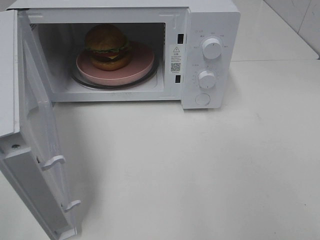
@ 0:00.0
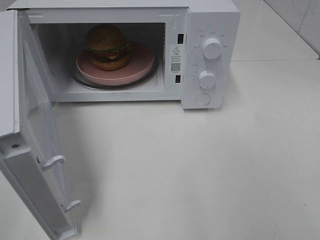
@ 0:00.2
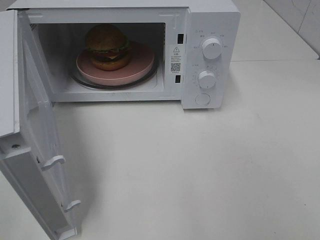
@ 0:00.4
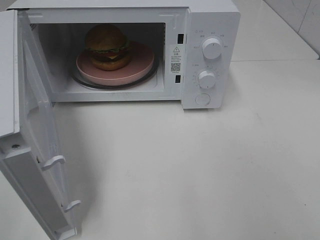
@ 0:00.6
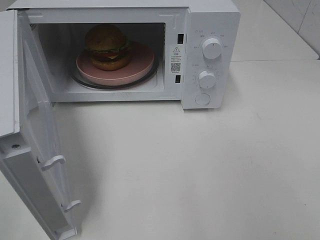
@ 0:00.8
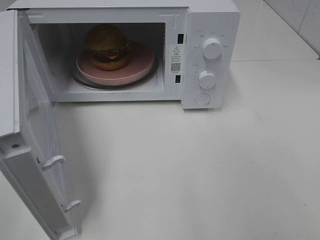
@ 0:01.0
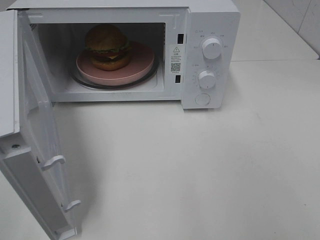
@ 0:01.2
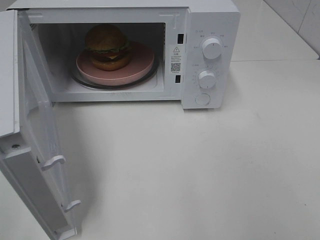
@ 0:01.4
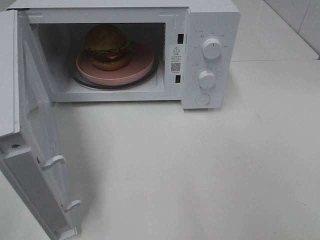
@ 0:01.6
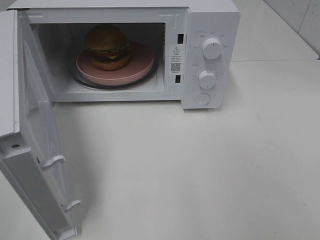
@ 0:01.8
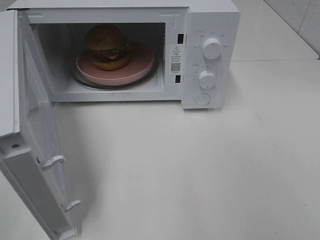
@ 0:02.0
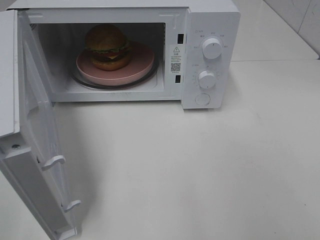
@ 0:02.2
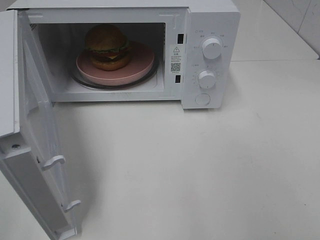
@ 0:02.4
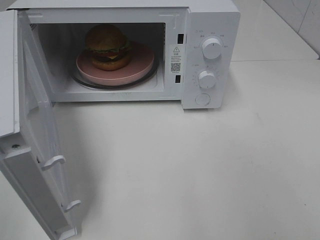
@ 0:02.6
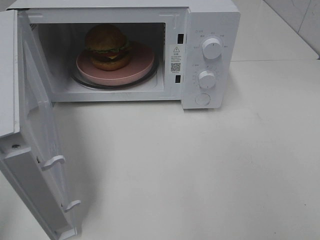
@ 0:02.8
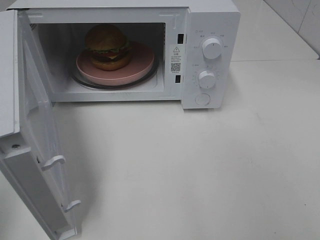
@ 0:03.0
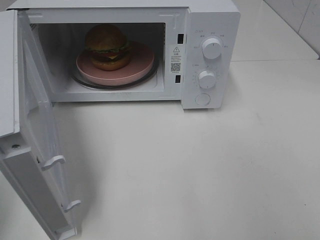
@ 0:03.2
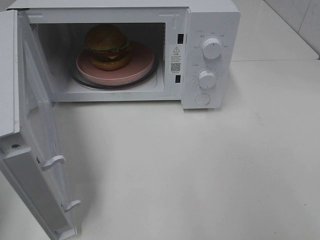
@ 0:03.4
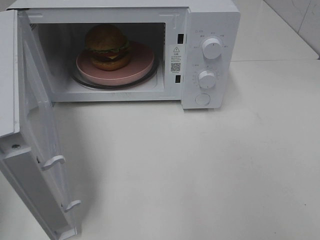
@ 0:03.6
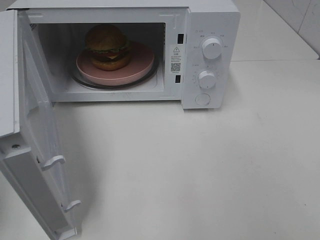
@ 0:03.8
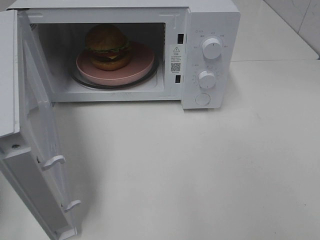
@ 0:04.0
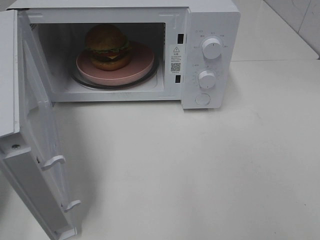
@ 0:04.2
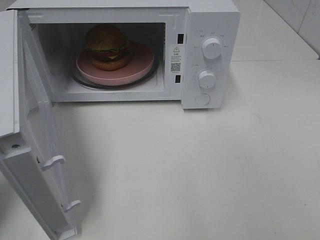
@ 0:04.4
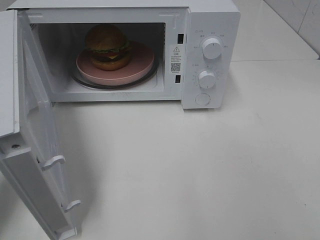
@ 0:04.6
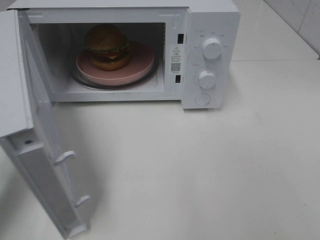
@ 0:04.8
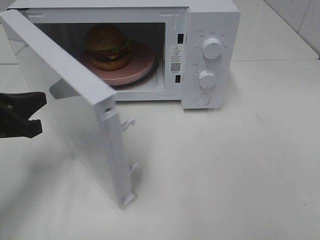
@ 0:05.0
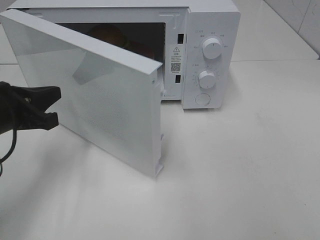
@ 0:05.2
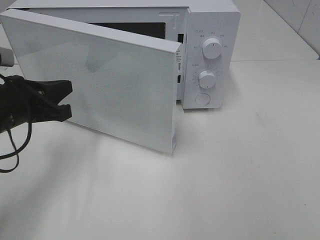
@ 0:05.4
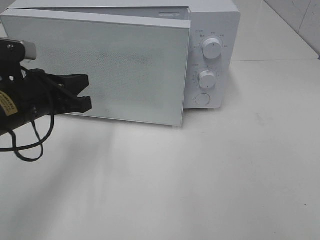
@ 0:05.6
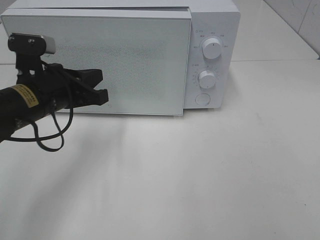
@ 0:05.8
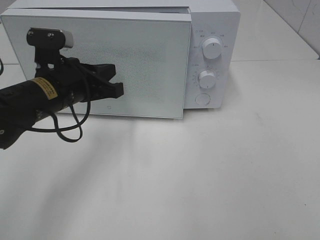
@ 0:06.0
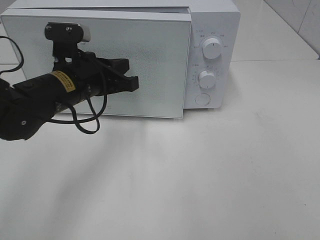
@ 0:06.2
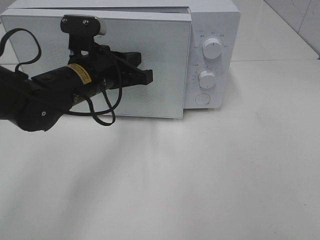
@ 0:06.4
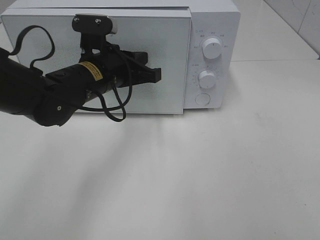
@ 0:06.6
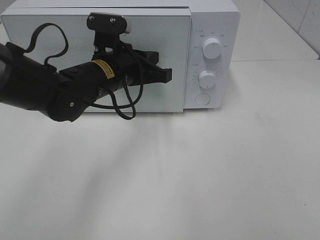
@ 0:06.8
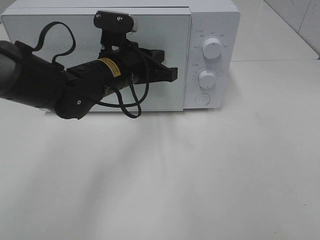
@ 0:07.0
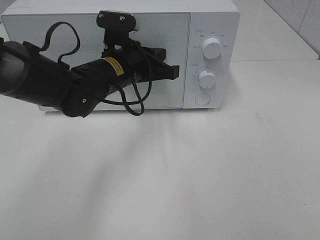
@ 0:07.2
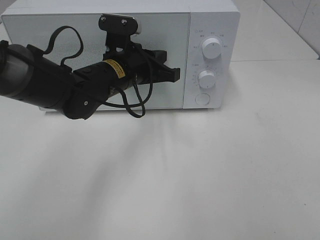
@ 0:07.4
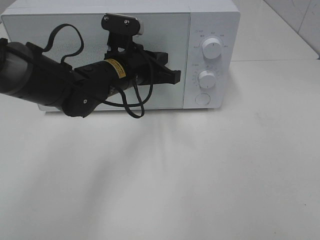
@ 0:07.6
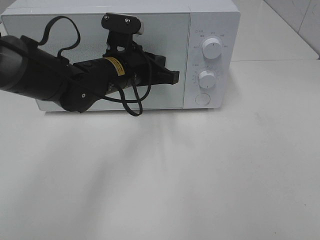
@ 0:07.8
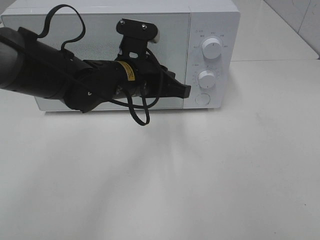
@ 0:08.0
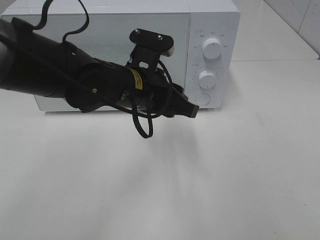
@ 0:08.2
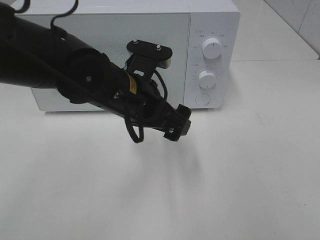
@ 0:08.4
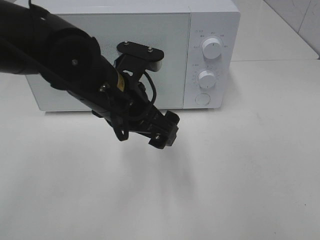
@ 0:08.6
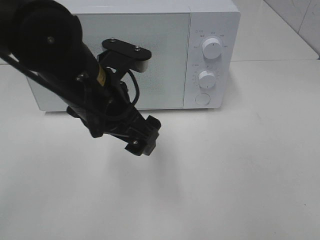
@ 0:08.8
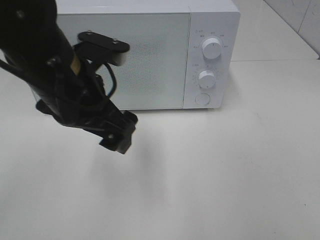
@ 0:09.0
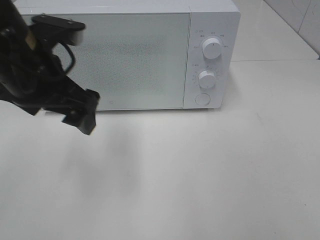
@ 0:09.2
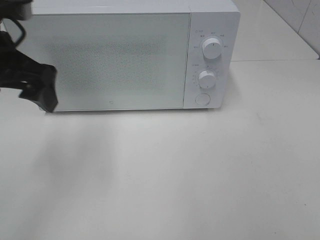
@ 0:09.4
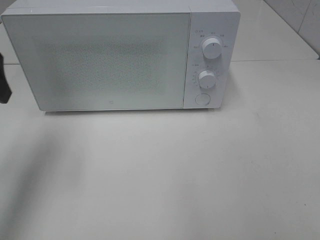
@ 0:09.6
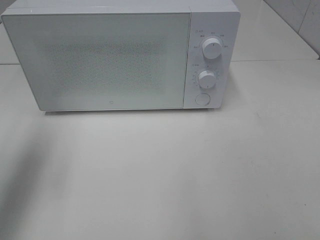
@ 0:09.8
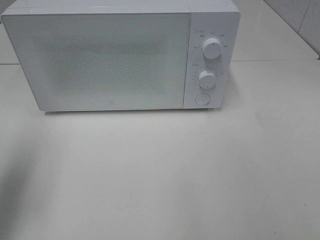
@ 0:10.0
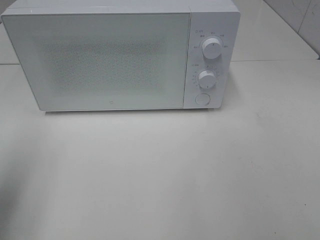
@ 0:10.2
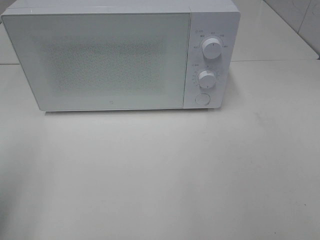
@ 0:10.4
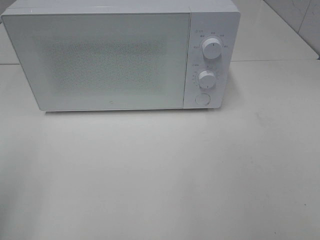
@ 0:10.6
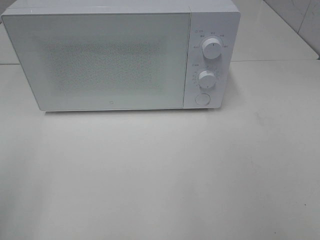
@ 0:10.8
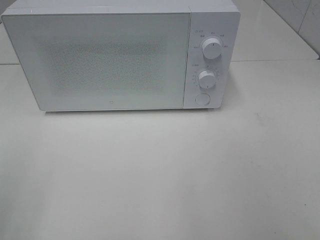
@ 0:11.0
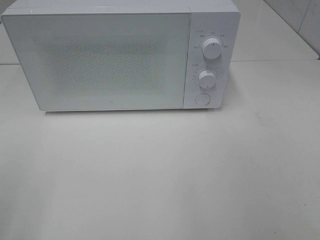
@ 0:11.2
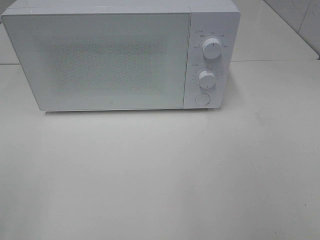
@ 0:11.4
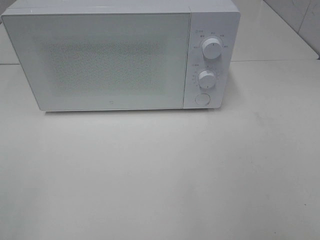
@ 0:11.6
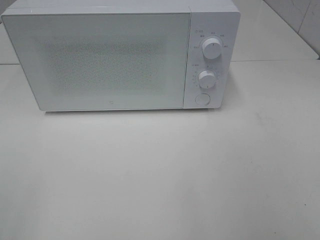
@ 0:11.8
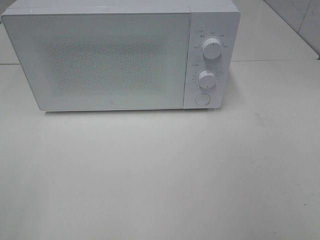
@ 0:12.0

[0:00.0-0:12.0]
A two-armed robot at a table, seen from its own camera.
Task of the whole recording: Heat the burger.
Step, 0:00.0 to 0:07.8: Left hand: close the microwave door.
0:03.0 to 0:04.4: The left gripper heads downward and forward, covering some 20 cm.
0:04.4 to 0:06.0: The left gripper is displaced to the right and forward by some 20 cm.
0:06.0 to 0:07.6: The left gripper shifts roughly 10 cm to the right and forward.
0:07.6 to 0:09.0: The left gripper moves backward and upward, roughly 15 cm, and opens.
0:09.0 to 0:10.4: The left gripper travels to the left and backward by approximately 25 cm.

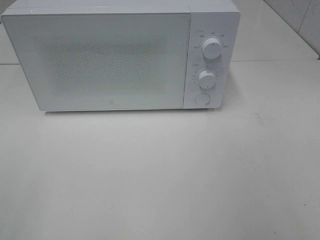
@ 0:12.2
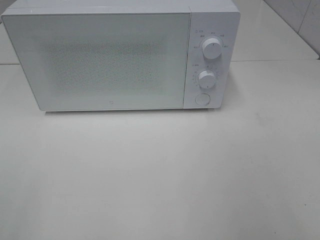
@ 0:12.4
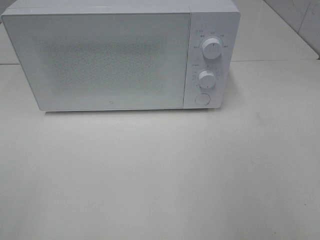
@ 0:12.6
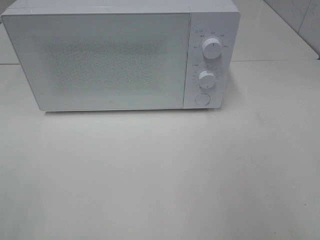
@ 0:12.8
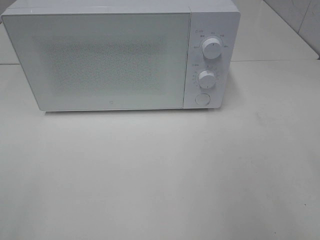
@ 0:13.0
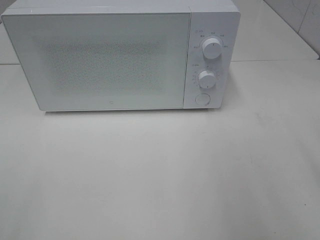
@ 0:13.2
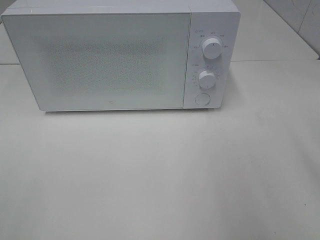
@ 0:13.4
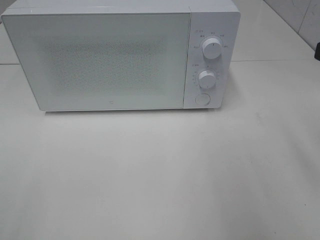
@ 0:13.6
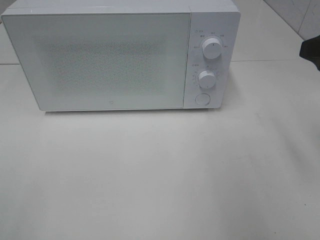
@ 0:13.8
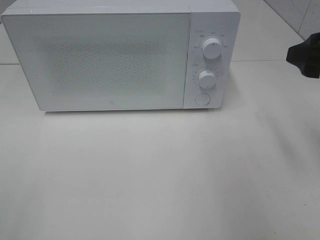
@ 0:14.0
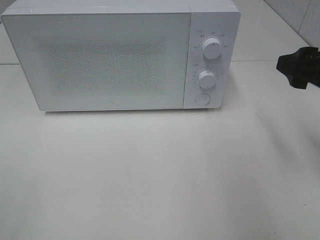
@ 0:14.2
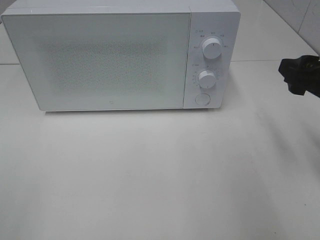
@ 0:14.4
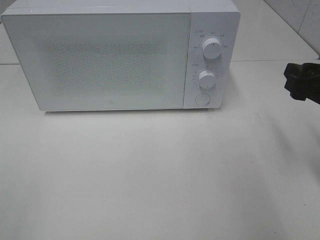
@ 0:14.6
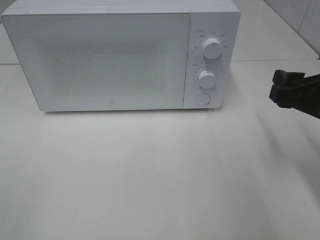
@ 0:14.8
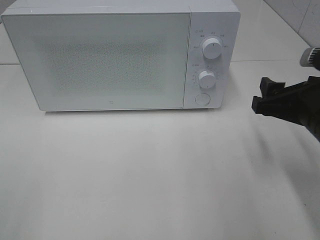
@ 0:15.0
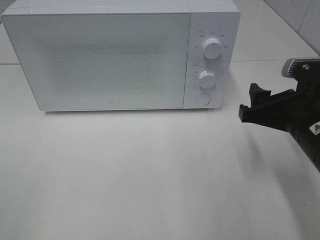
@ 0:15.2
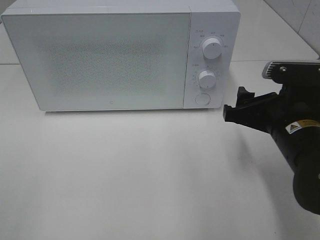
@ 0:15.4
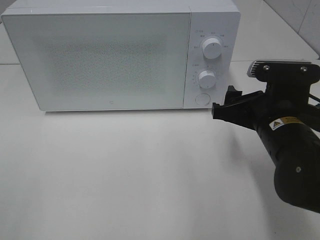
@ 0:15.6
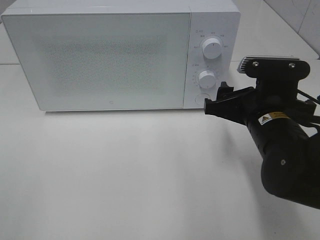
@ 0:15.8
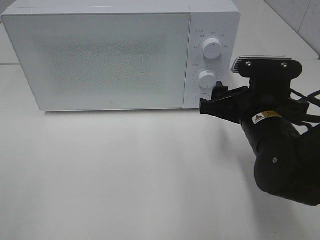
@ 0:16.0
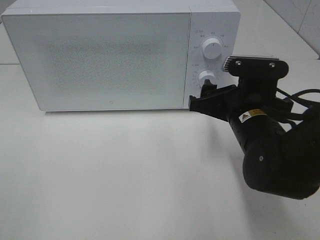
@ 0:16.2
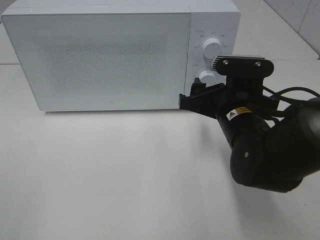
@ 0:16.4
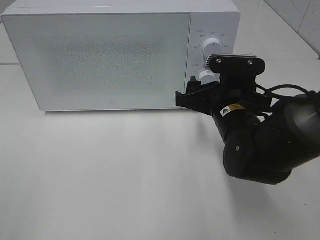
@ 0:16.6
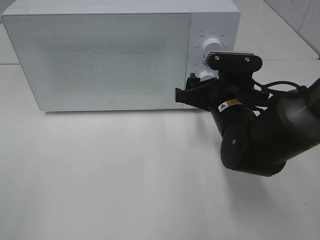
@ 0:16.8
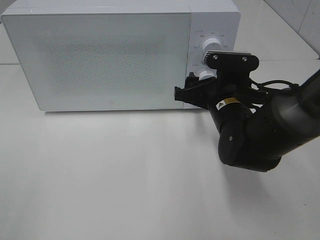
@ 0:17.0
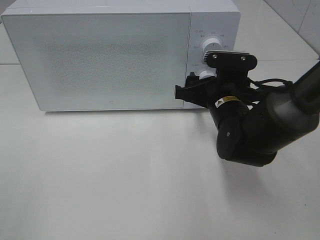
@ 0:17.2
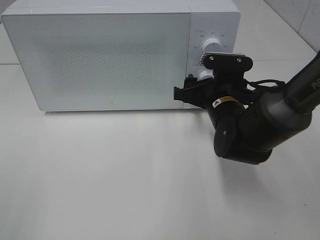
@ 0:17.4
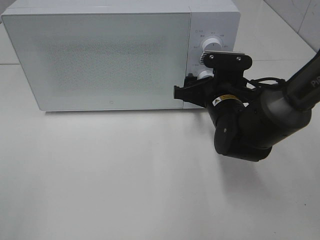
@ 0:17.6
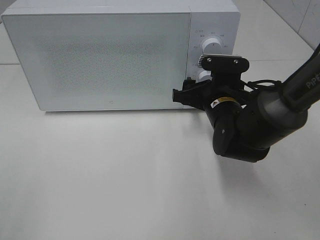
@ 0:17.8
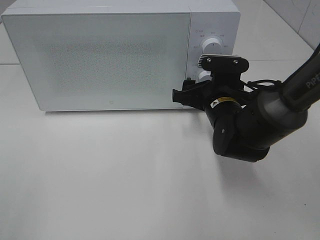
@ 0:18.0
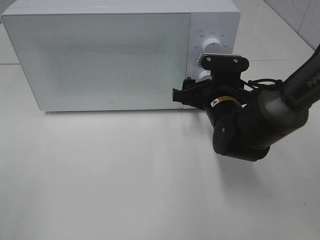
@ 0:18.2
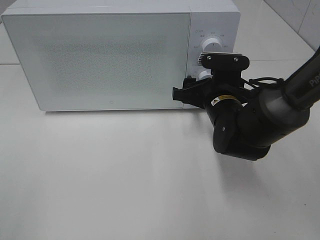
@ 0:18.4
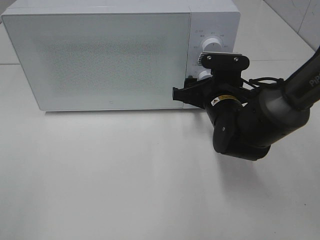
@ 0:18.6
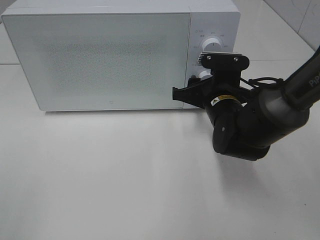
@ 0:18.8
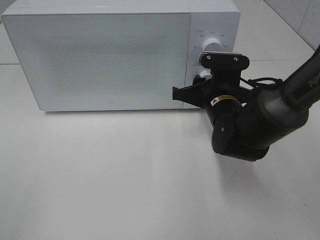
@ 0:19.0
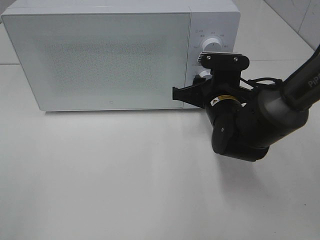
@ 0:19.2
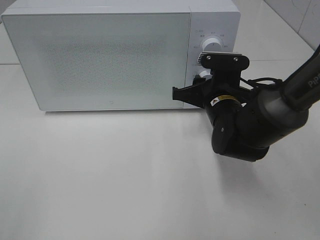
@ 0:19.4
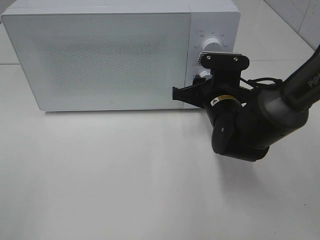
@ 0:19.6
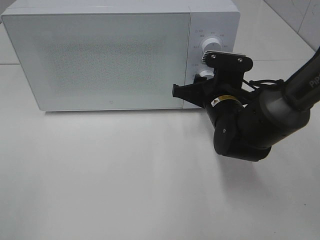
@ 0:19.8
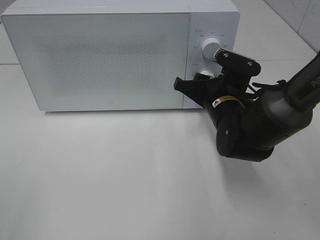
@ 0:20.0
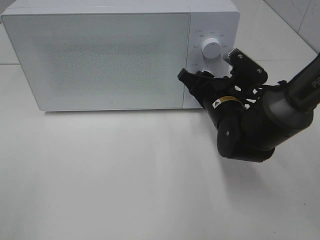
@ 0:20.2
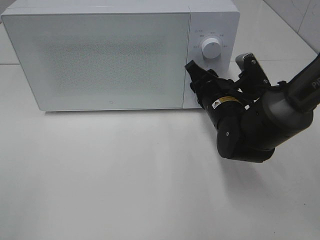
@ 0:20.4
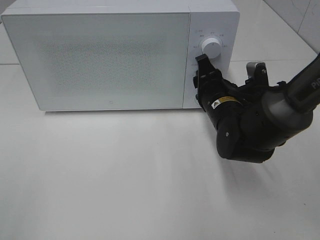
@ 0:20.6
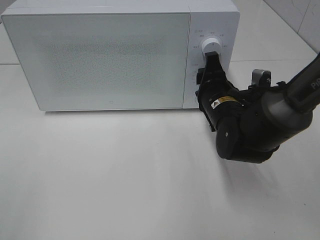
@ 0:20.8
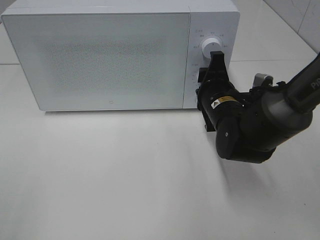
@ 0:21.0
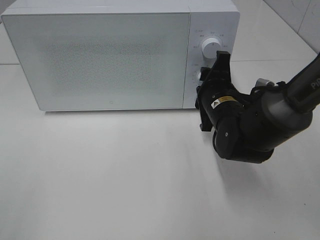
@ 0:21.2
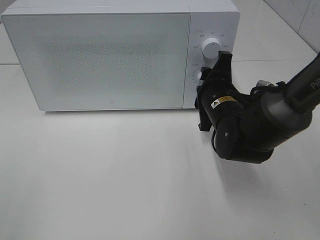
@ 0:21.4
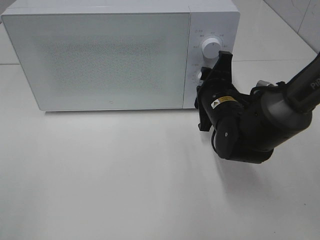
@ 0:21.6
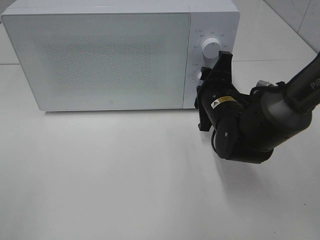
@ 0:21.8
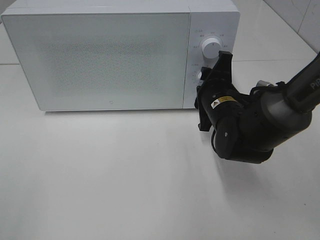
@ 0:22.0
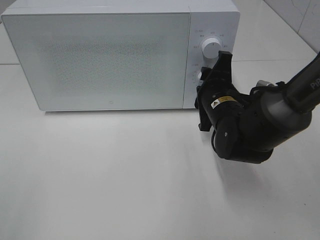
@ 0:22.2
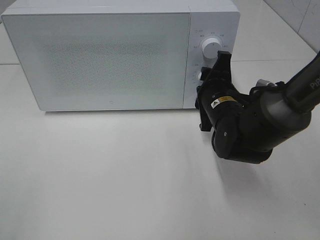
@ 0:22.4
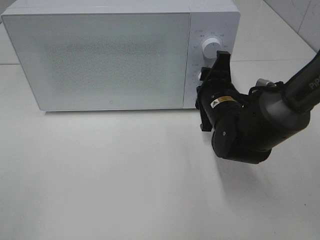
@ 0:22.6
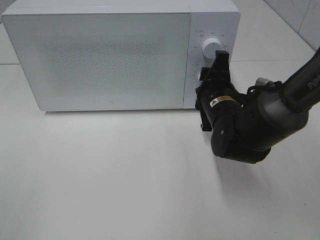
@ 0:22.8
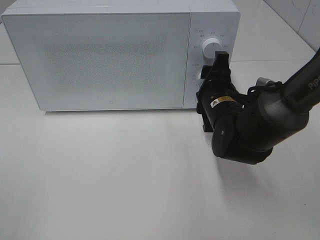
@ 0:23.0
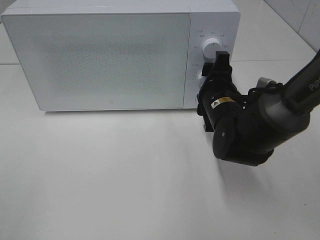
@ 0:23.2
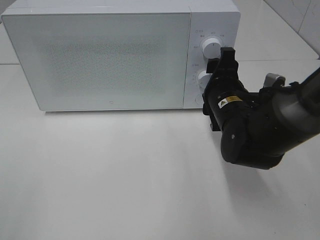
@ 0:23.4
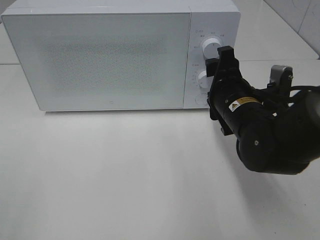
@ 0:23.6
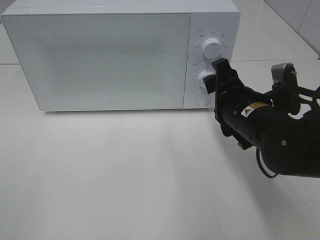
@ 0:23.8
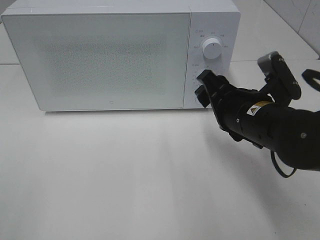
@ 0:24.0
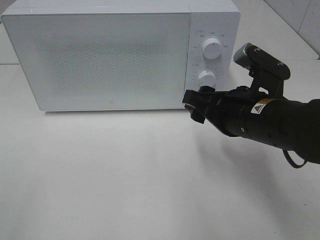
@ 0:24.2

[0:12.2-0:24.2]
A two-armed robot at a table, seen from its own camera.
Task of the whole recording: Heat the burger.
Step, 0:12.2 to 0:23.0: Right hand: twist timer button.
0:12.2 to 0:13.8: The right gripper goes approximately 15 cm forward.
0:13.8 to 0:15.2: The right gripper moves downward and to the left, roughly 15 cm.
0:15.2 to 0:16.6: The right gripper heads to the left and forward, covering about 10 cm.
0:16.6 to 0:18.2: The right gripper changes place by some 5 cm.
0:18.2 to 0:19.8: The right gripper closes its fingers.
0:21.2 to 0:22.6: The two grippers keep their place.
0:22.6 to 0:24.2: The right gripper goes some 10 cm backward and upward.
